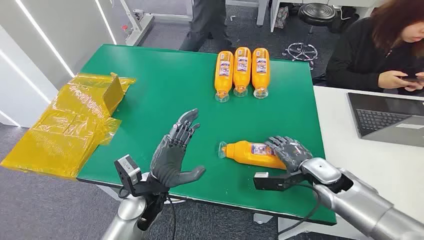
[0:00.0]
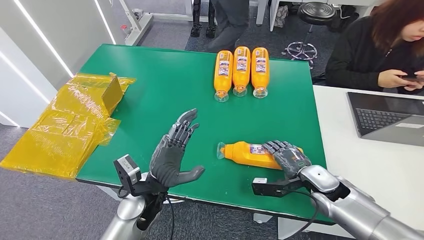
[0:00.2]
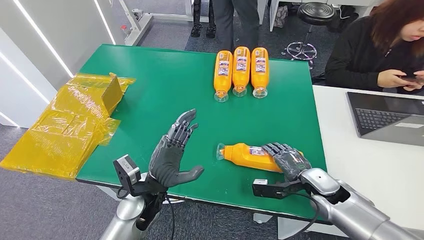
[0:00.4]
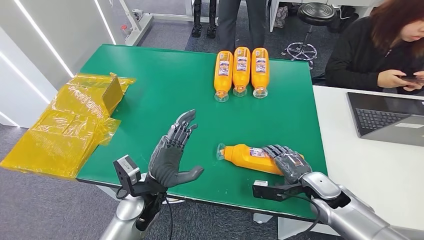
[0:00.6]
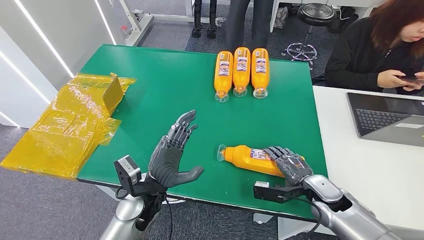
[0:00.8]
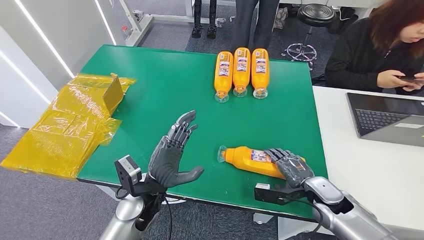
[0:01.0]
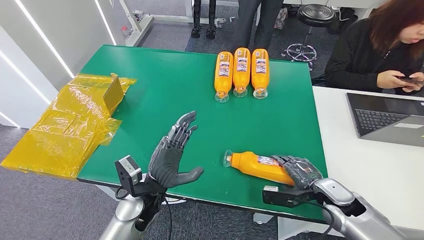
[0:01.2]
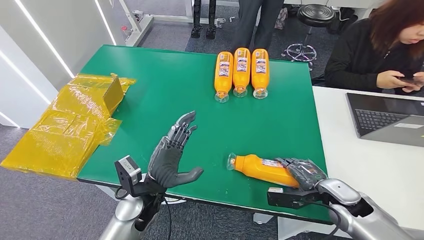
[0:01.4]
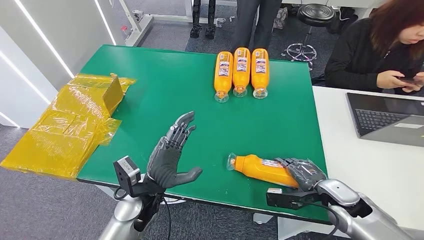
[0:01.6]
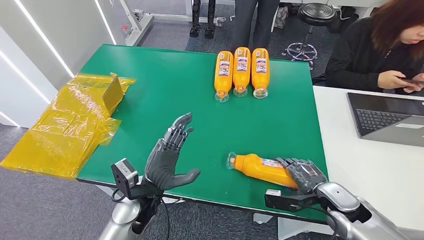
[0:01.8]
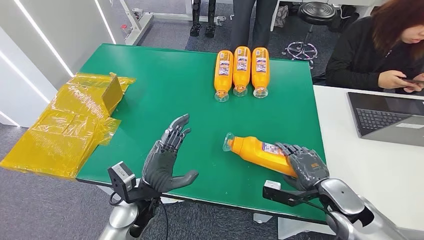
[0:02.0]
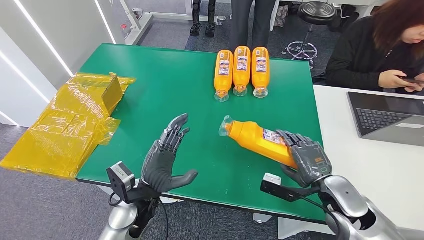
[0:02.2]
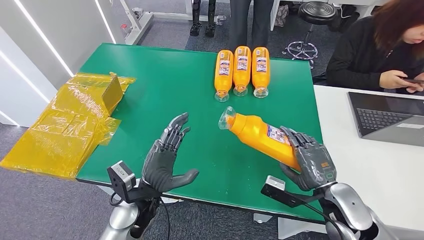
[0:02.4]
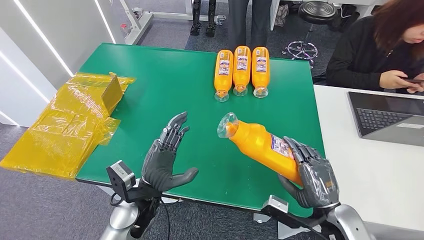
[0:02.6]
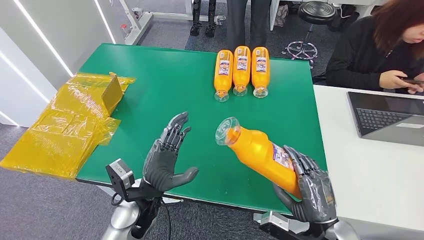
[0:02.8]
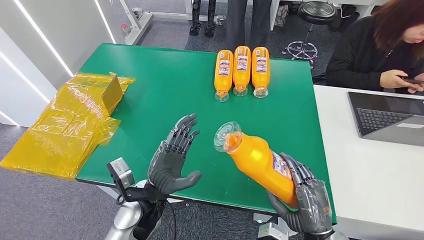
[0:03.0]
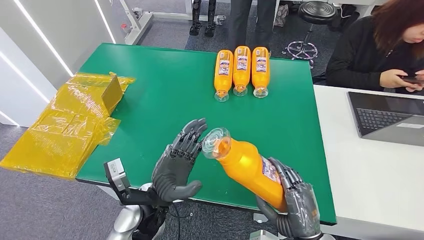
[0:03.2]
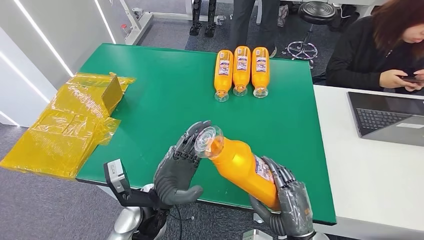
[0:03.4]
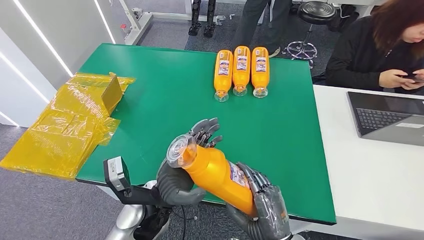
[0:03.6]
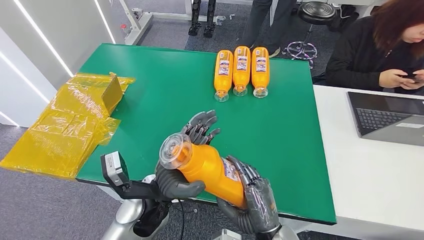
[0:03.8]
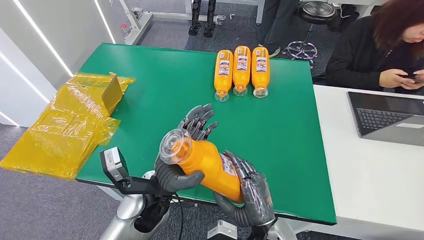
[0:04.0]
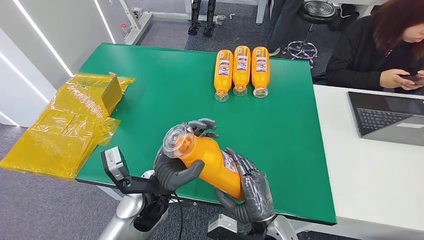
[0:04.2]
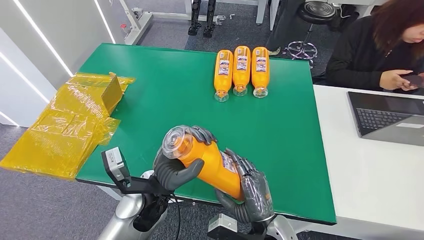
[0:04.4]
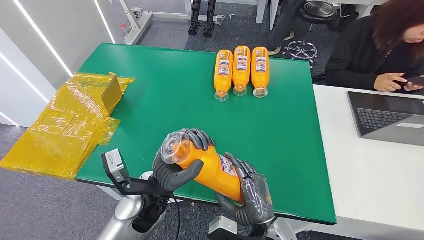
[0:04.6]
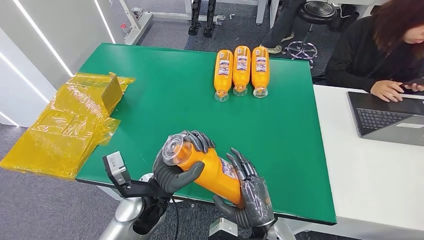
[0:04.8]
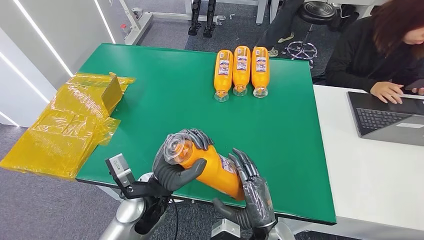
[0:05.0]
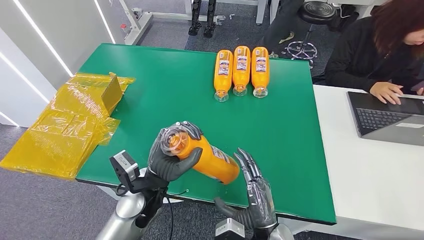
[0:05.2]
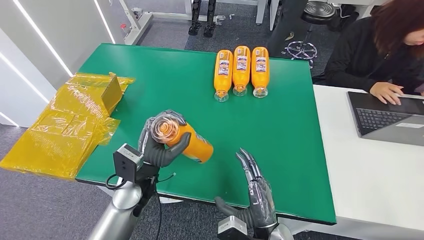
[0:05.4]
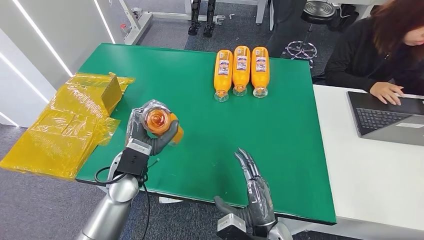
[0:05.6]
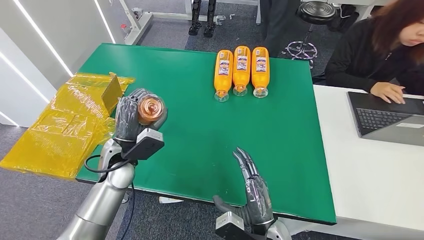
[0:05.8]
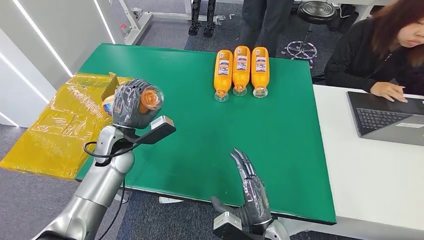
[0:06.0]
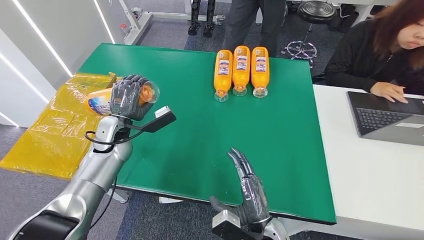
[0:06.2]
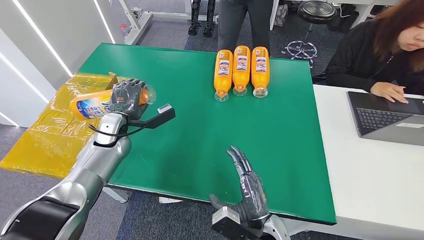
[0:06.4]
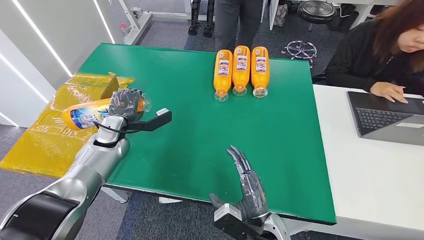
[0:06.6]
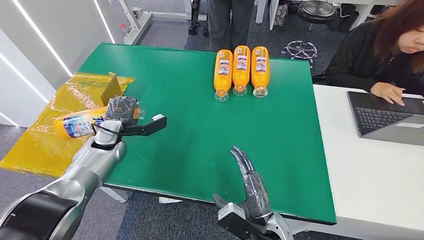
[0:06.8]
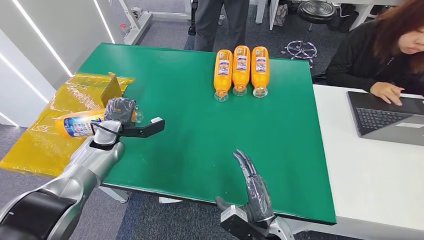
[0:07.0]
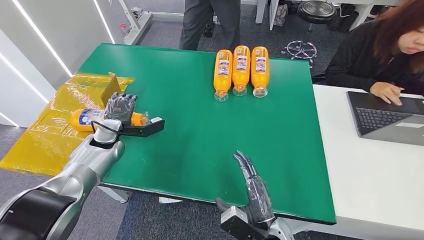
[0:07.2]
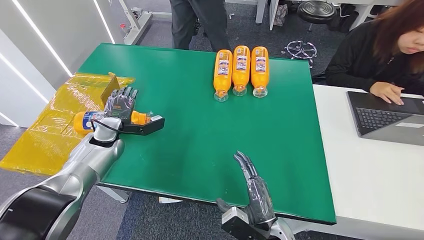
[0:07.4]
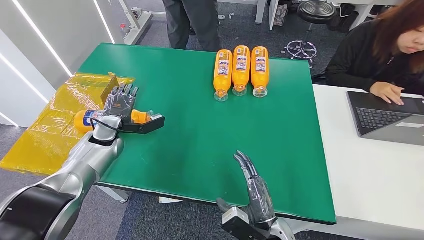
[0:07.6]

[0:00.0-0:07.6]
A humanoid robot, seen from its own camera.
Step, 0:00.0 to 0:03.0: Pick up the bottle from the table.
Step, 0:03.2 to 0:07.6: Turn the bottle to the front side.
0:01.6 to 0:03.0: The right hand heads backward and to the left, covering approximately 15 cm.
0:03.0 to 0:04.6: The right hand goes some 10 cm to the left.
0:04.6 to 0:06.0: The left hand shifts about 20 cm to the left and forward.
0:06.0 to 0:07.6: The left hand shifts approximately 10 cm to the left.
